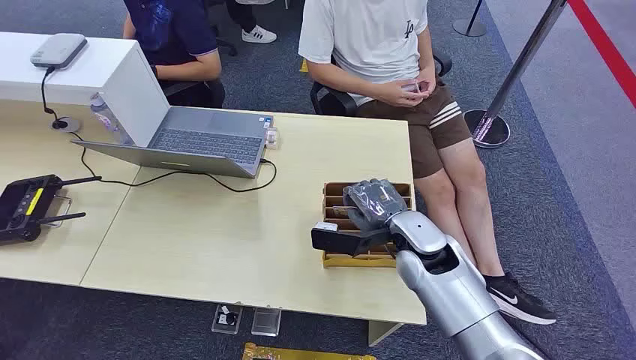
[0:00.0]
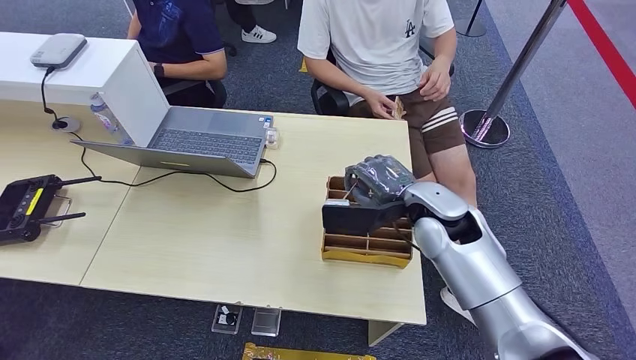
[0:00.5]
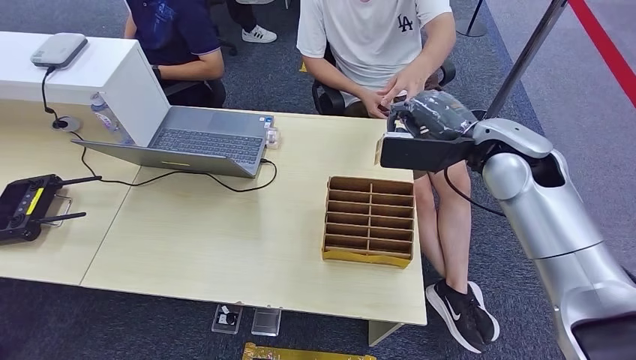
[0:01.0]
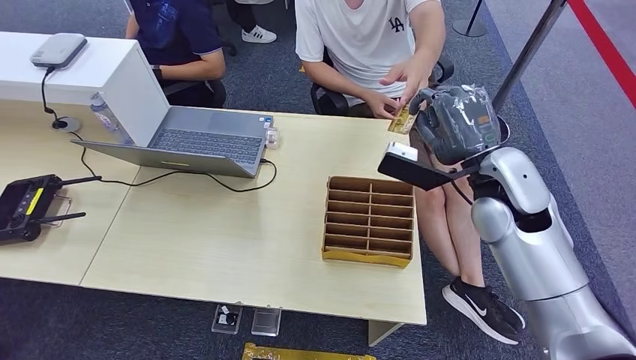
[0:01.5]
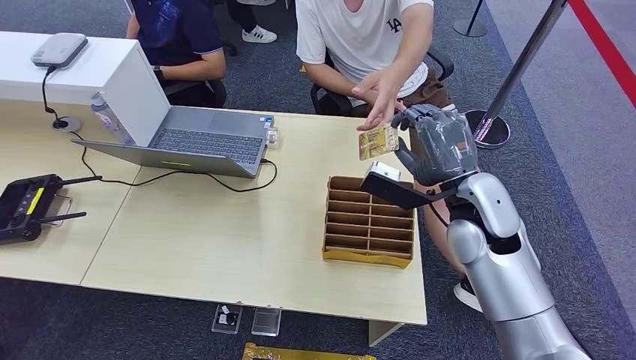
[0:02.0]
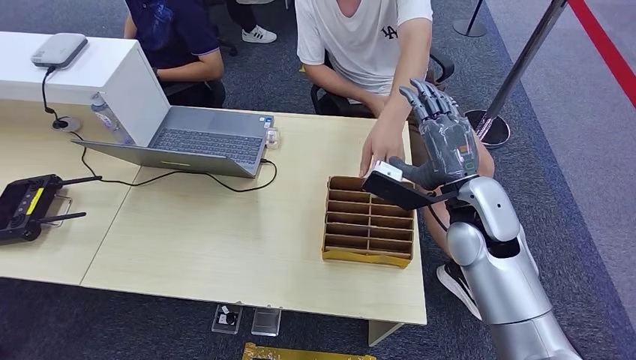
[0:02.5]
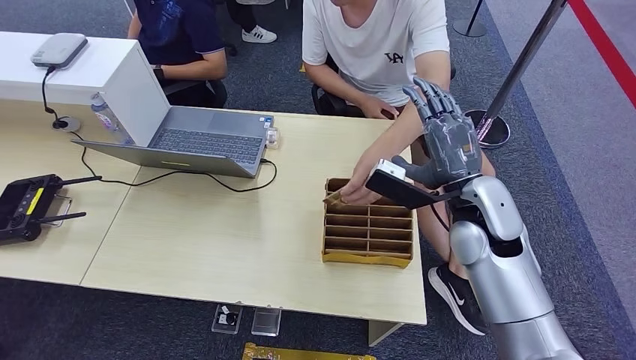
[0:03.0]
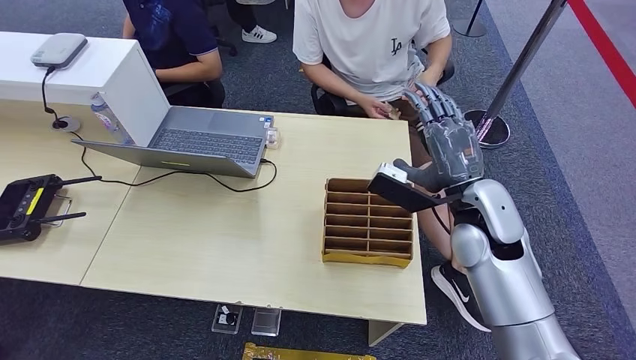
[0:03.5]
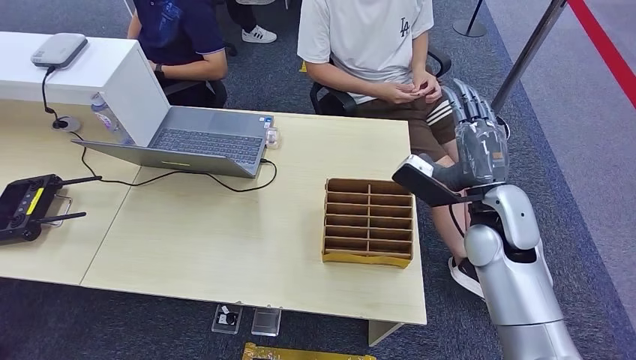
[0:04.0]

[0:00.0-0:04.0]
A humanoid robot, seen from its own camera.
Step, 0:00.0 to 0:00.5: Pick up the room card from the card holder.
Step, 0:01.0 to 0:04.0: Hand the room card to the target.
0:02.0 to 0:04.0: The hands make only small movements.

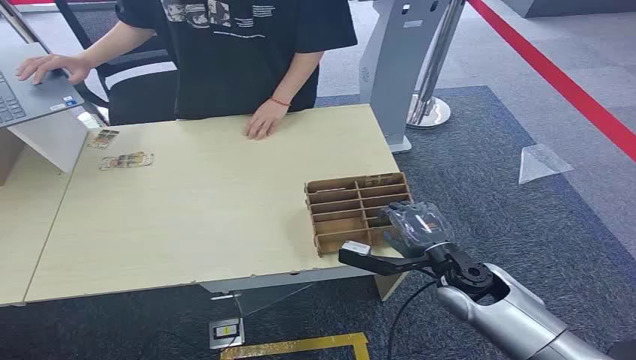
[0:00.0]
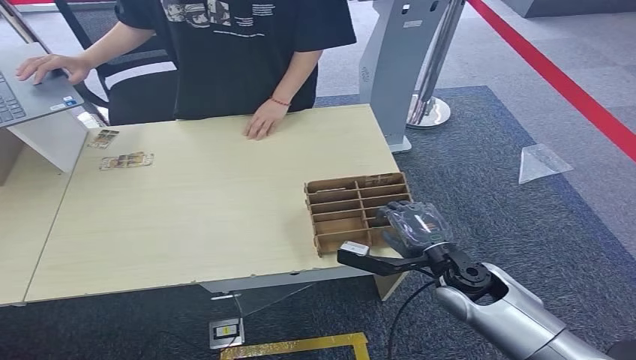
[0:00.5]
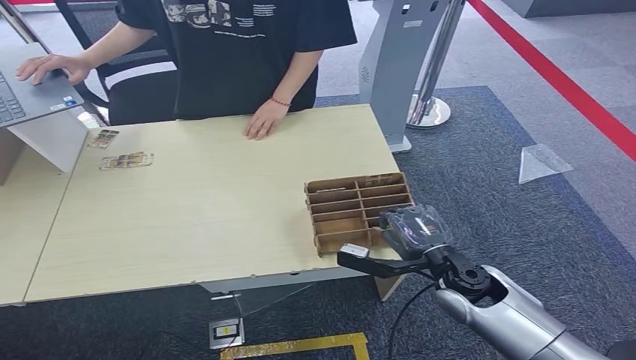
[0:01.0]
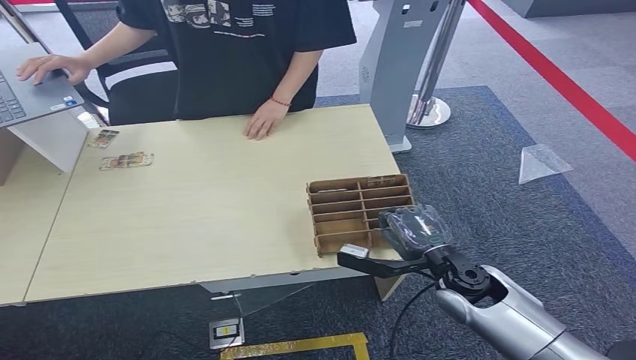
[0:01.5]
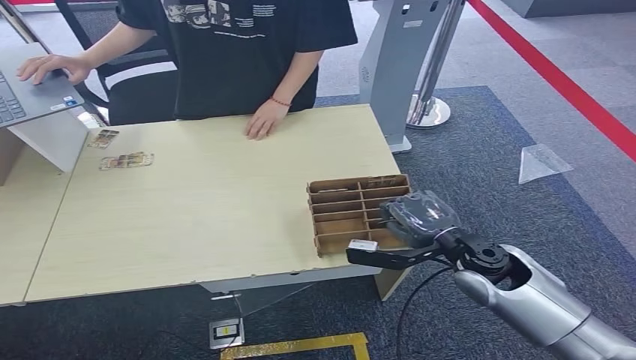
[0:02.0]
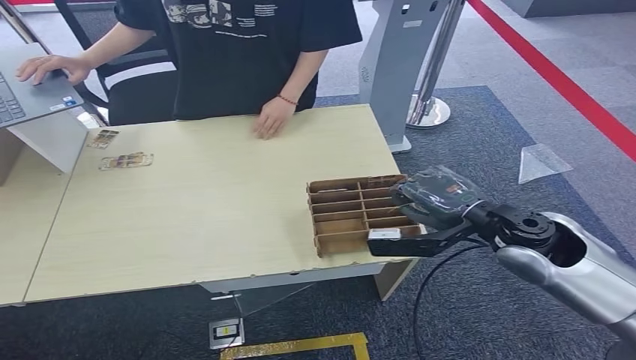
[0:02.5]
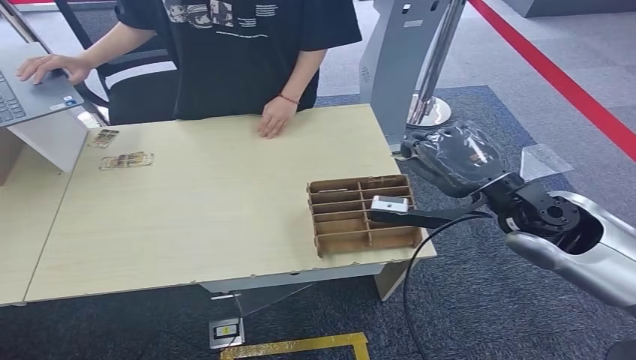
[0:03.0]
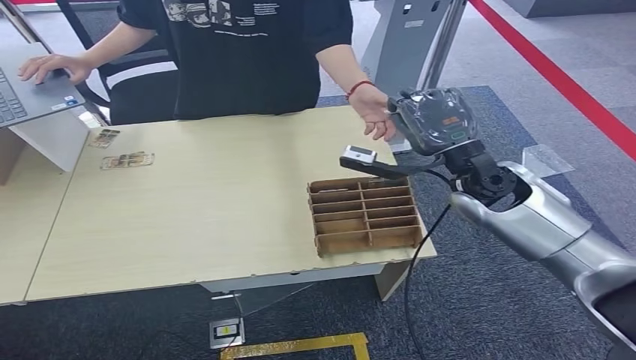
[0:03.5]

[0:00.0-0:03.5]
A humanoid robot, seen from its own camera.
Step, 0:00.0 to 0:02.5: Pick up the room card from the card holder.
Step, 0:03.0 to 0:03.5: Hand the room card to the target.
0:02.0 to 0:03.5: The right hand goes approximately 15 cm upward and forward.
